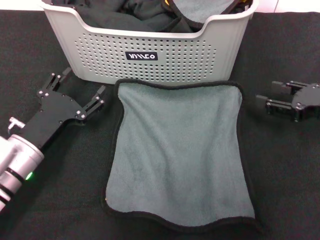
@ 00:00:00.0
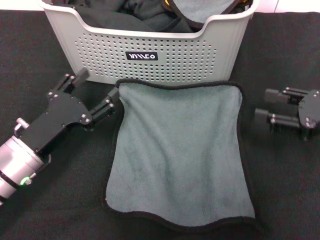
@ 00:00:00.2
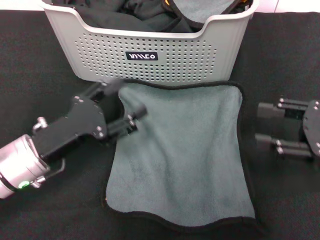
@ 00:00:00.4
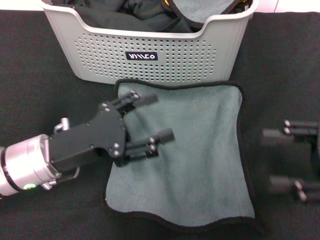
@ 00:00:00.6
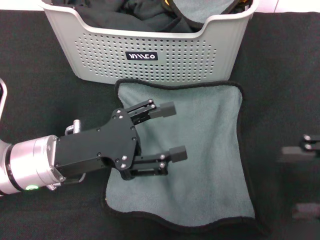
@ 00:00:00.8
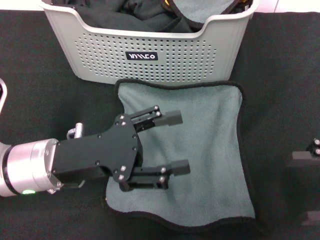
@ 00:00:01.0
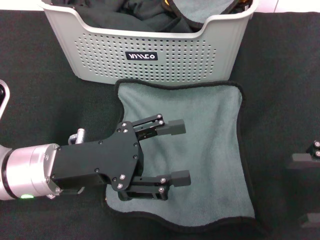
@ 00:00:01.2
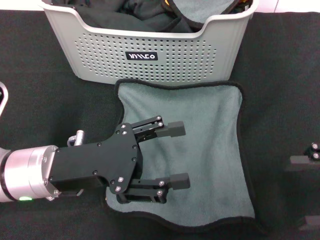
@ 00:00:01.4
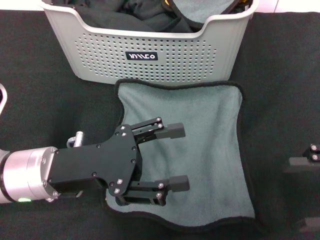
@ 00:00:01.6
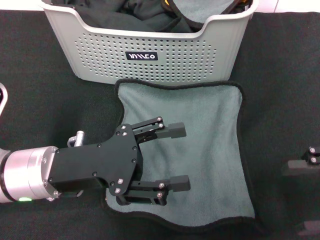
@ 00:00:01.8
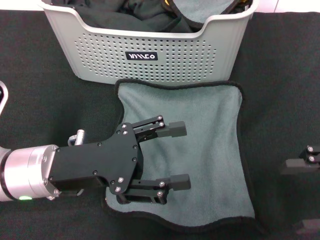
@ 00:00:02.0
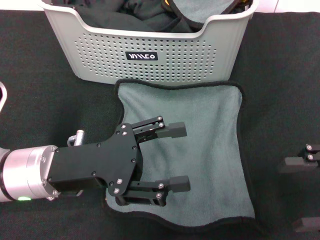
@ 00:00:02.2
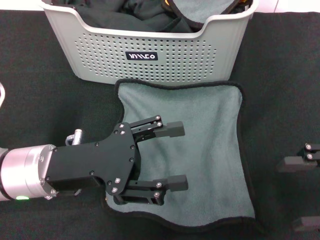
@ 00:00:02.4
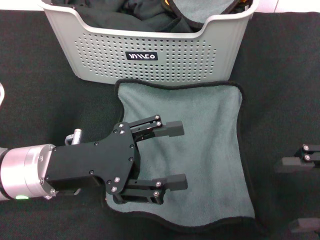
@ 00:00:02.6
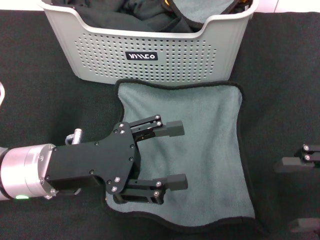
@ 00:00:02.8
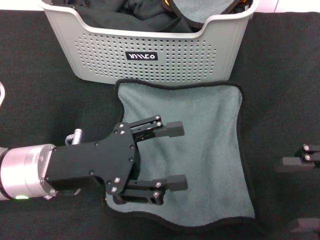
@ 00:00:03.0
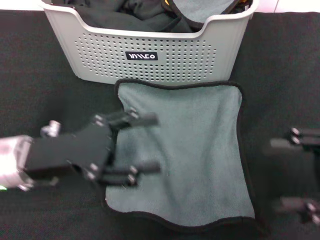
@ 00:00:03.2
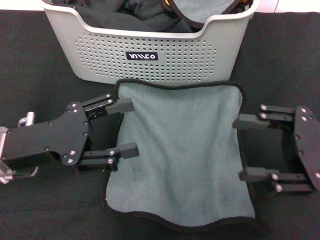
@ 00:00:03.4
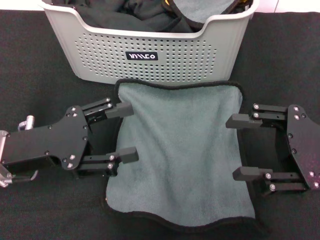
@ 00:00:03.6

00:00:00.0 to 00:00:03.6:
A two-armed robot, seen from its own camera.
Task of the whole recording: pick up the towel from the storage box and lay it flat on the black tablecloth.
00:00:00.0 to 00:00:01.8: The left gripper is displaced upward by approximately 5 cm. Meanwhile the right gripper moves backward, about 10 cm.
00:00:01.8 to 00:00:03.6: The two grippers go about 5 cm to the left.
